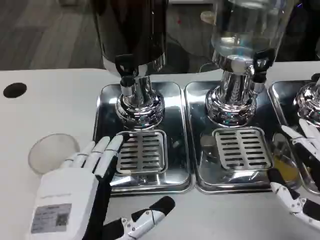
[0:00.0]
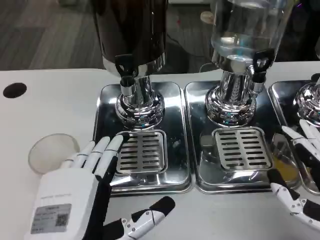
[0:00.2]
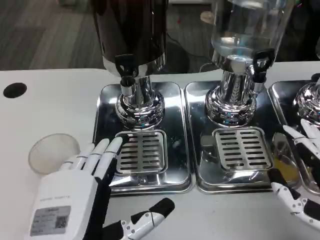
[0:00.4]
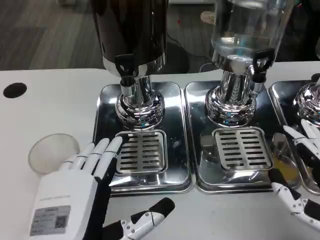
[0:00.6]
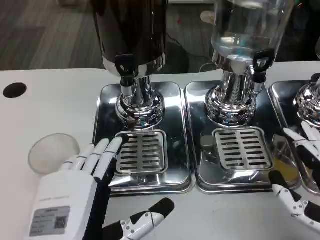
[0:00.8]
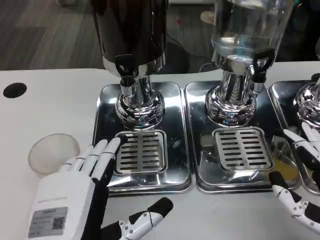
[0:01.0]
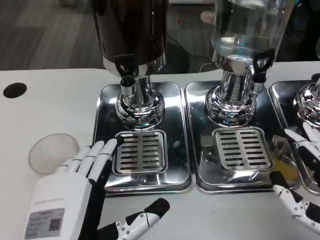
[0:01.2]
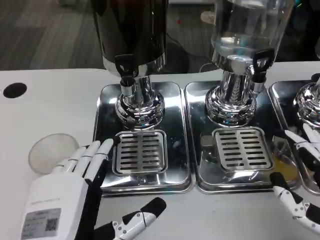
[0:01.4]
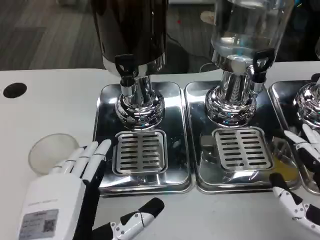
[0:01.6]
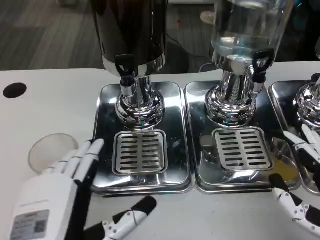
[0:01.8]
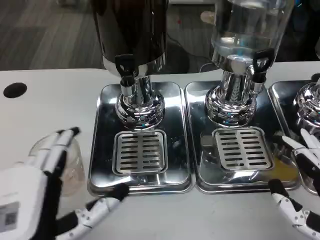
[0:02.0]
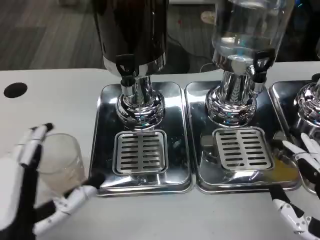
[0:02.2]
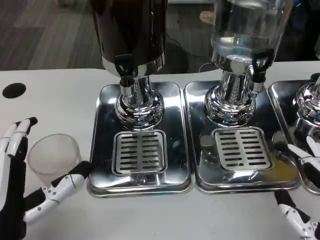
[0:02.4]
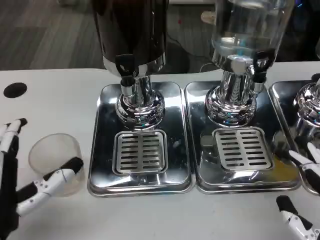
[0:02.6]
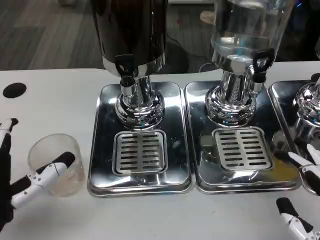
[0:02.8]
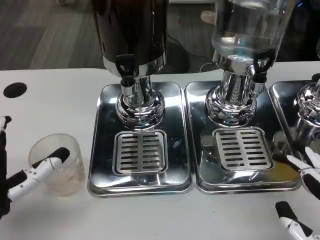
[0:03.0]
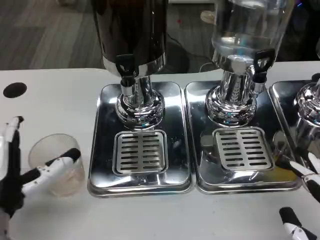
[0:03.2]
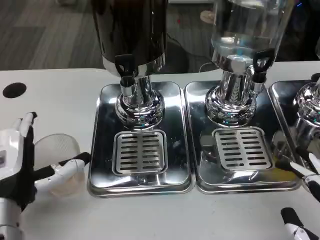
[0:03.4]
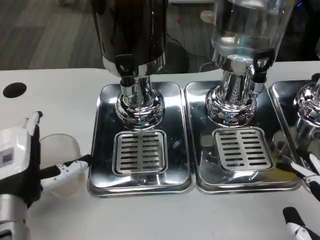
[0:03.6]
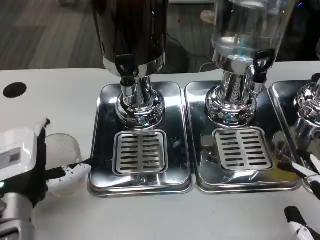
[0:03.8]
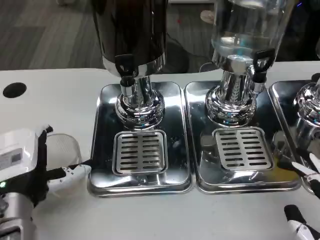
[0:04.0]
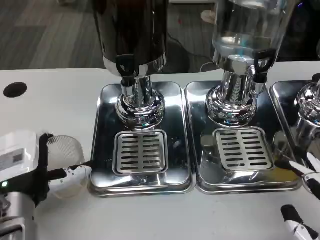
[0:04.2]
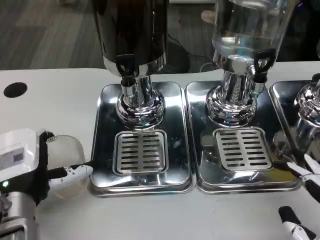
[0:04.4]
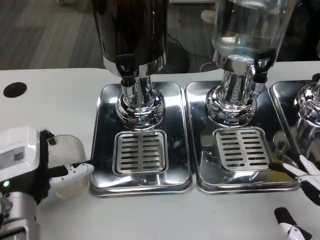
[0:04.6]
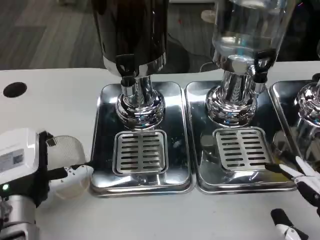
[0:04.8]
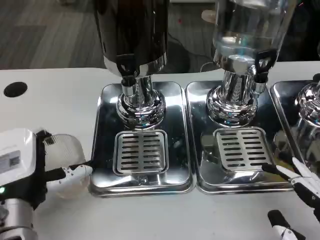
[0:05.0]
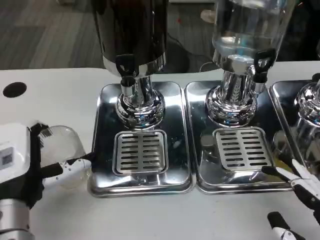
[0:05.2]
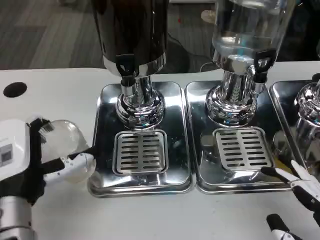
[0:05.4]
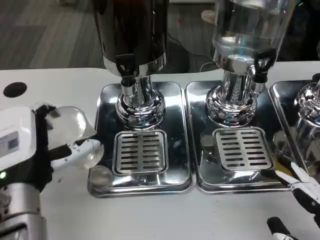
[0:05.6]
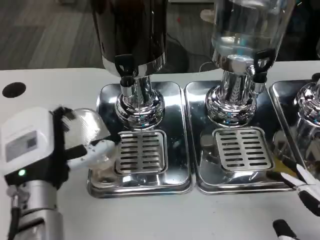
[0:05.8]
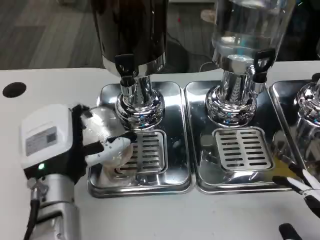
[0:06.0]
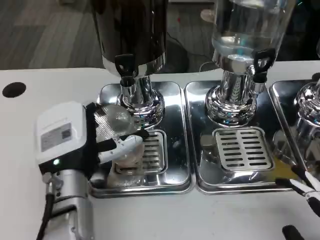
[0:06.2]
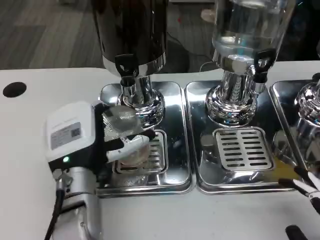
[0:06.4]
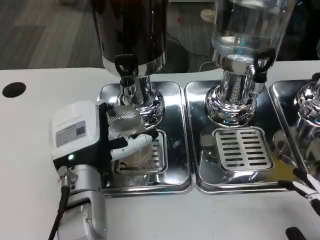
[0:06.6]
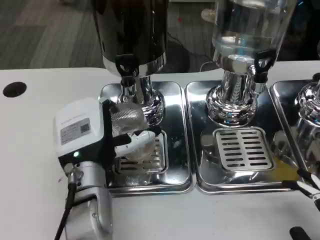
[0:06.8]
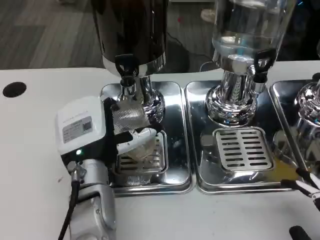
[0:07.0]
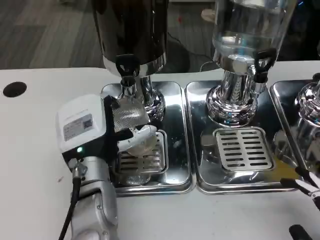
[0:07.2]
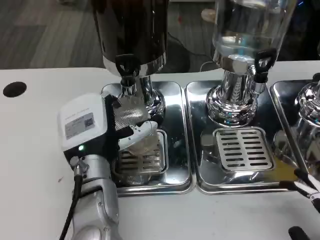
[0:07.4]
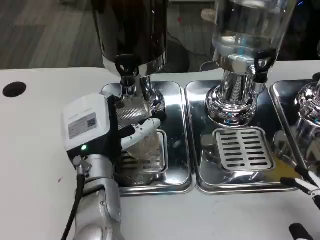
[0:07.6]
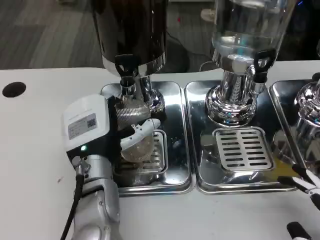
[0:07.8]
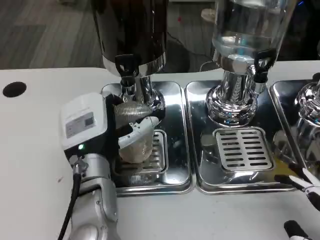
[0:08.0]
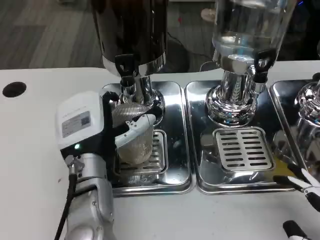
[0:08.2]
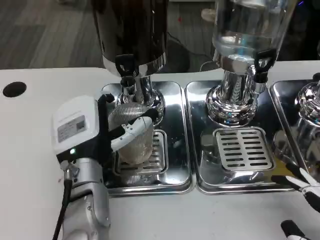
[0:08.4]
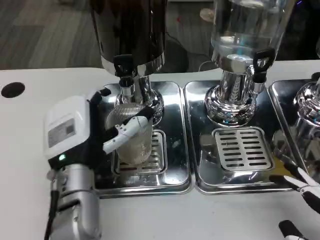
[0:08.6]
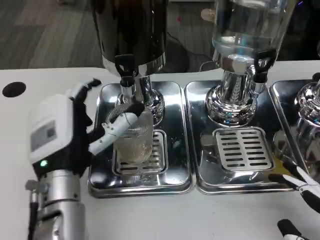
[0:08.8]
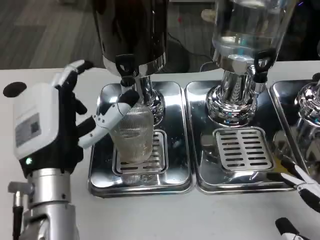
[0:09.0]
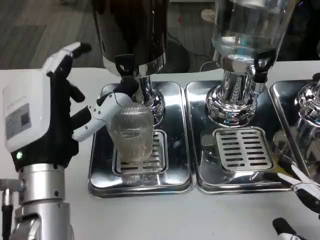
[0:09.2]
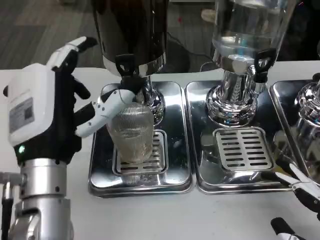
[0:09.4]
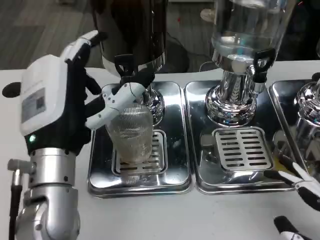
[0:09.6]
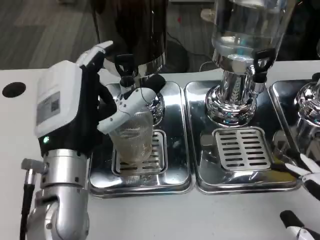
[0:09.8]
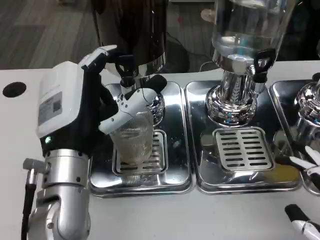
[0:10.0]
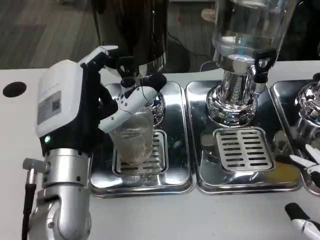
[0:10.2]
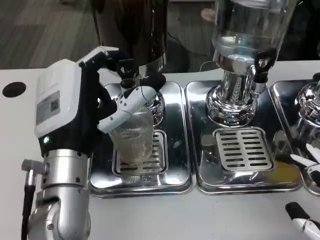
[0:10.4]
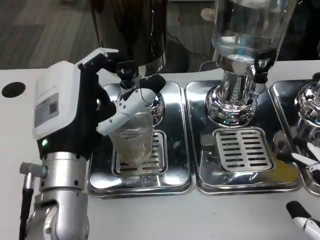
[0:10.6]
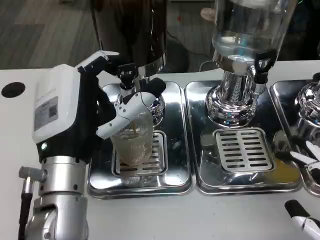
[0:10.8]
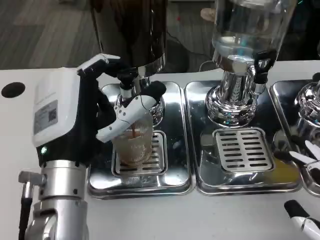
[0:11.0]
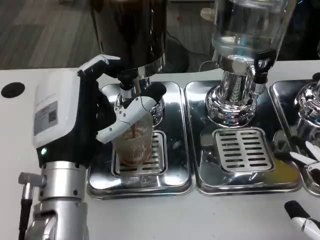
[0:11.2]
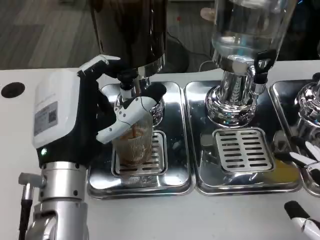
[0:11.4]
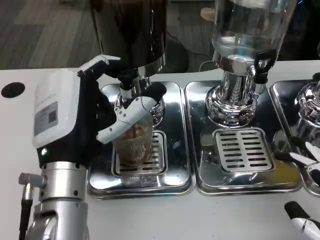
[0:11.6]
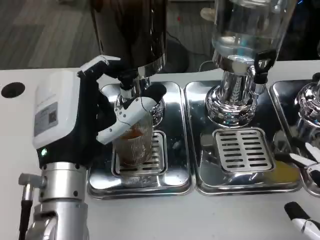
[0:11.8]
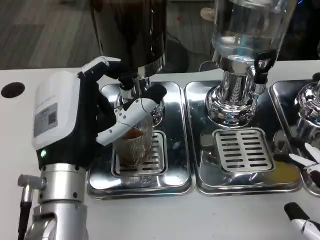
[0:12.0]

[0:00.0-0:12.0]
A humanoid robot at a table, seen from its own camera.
Task of the whole recording: Grasp the cup under the faucet to collect the drink, then remove the cup.
0:00.0 to 0:01.6: Both hands stay put.
0:01.6 to 0:03.0: The left hand goes about 10 cm to the left and forward.
0:03.0 to 0:04.4: The left hand changes place by some 5 cm.
0:04.4 to 0:06.0: The left hand moves roughly 5 cm.
0:06.0 to 0:07.6: The left hand ends up about 5 cm from where it was.
0:07.6 to 0:09.0: The left hand shifts by roughly 5 cm.
0:10.4 to 0:12.0: The hands move only a little.

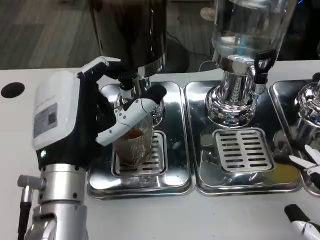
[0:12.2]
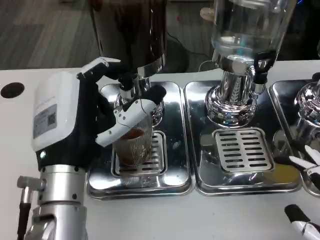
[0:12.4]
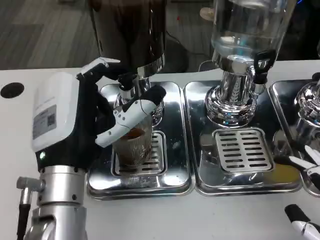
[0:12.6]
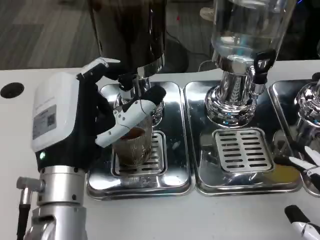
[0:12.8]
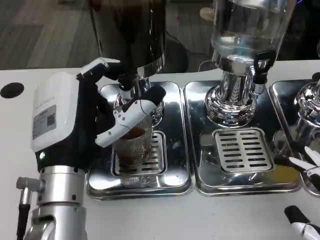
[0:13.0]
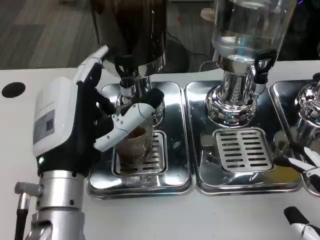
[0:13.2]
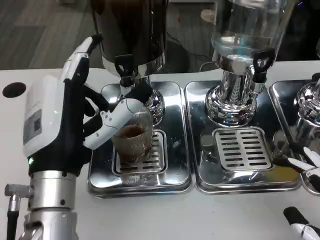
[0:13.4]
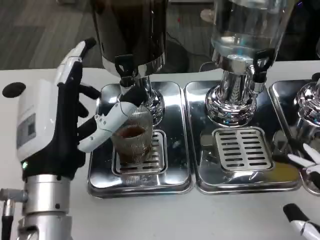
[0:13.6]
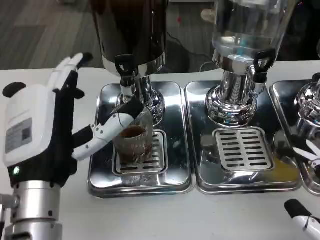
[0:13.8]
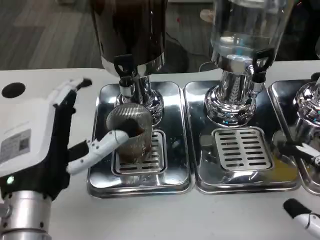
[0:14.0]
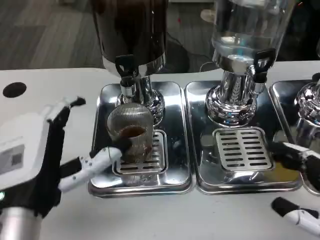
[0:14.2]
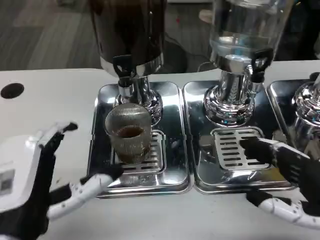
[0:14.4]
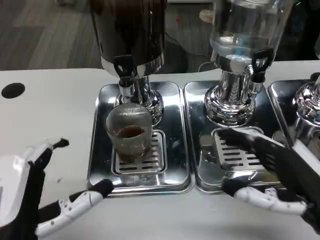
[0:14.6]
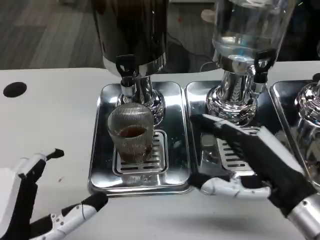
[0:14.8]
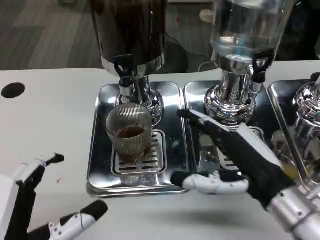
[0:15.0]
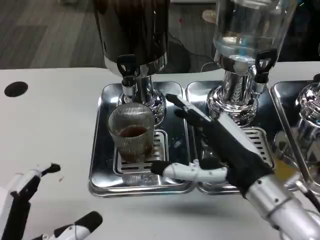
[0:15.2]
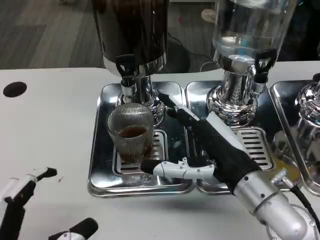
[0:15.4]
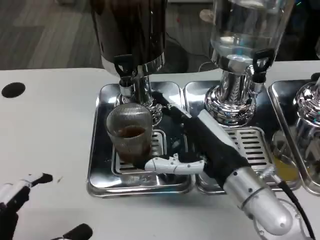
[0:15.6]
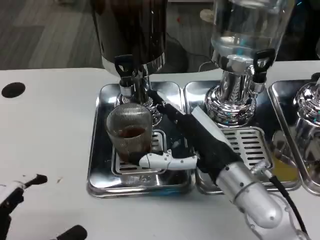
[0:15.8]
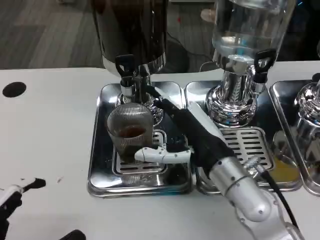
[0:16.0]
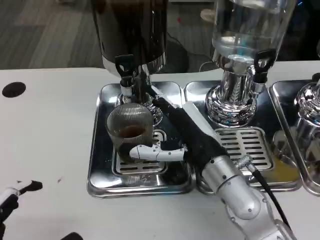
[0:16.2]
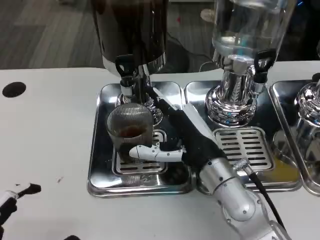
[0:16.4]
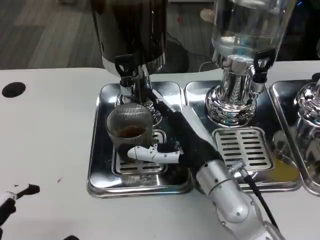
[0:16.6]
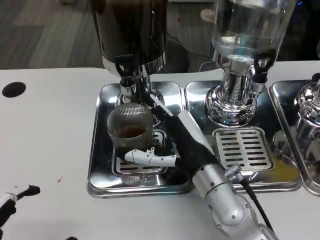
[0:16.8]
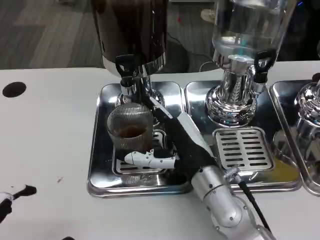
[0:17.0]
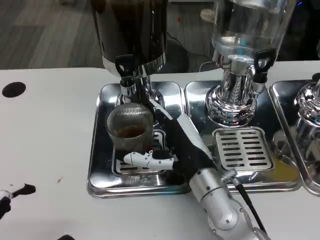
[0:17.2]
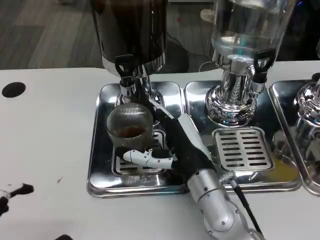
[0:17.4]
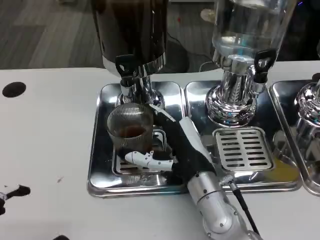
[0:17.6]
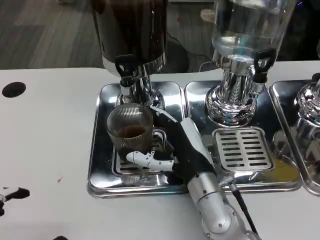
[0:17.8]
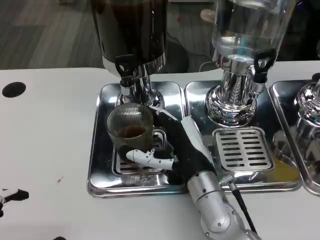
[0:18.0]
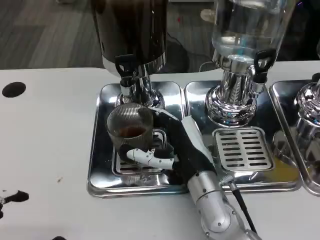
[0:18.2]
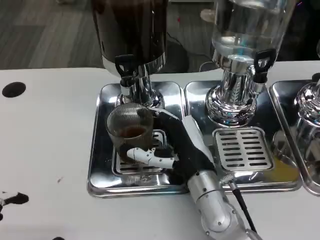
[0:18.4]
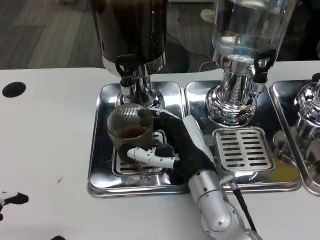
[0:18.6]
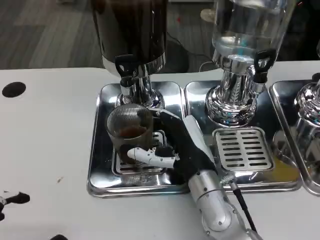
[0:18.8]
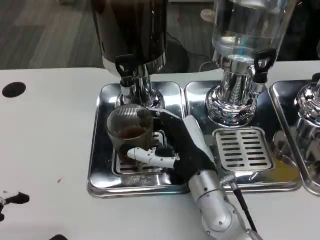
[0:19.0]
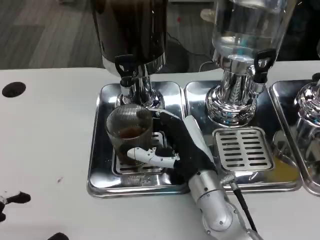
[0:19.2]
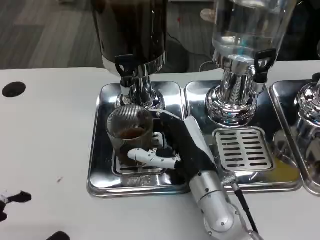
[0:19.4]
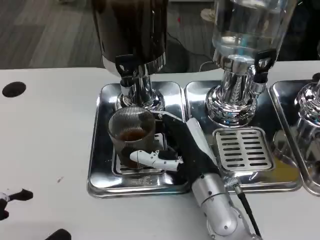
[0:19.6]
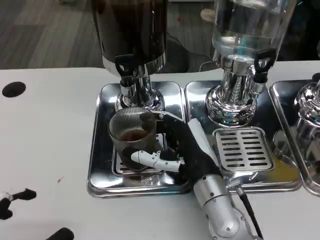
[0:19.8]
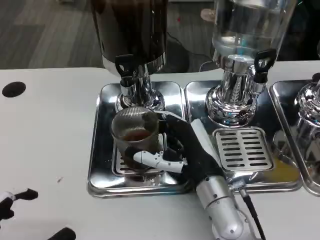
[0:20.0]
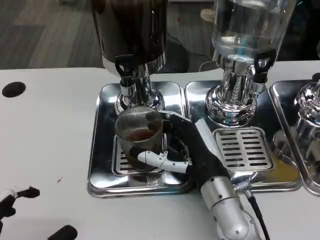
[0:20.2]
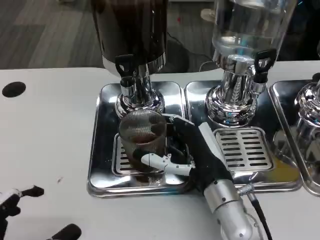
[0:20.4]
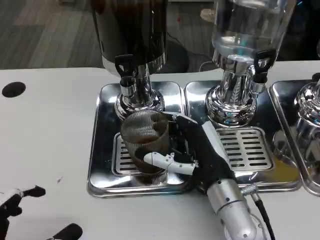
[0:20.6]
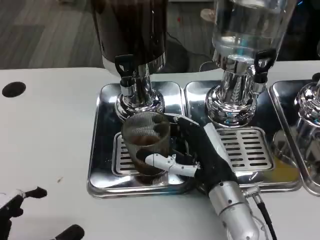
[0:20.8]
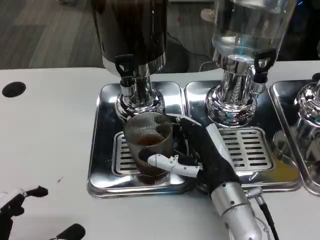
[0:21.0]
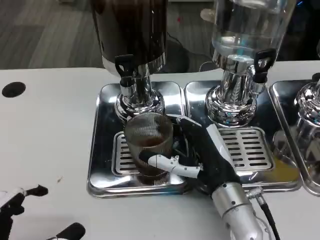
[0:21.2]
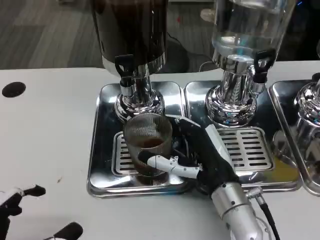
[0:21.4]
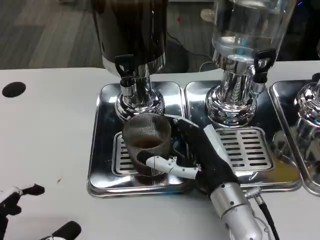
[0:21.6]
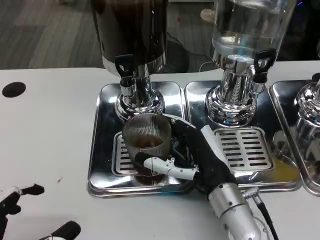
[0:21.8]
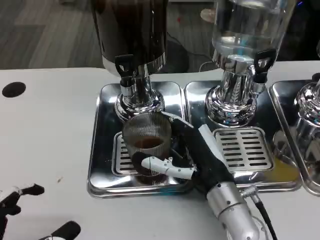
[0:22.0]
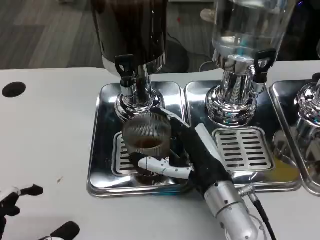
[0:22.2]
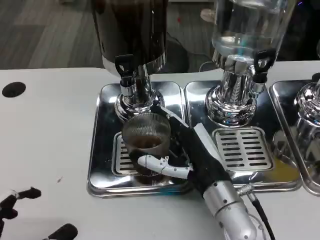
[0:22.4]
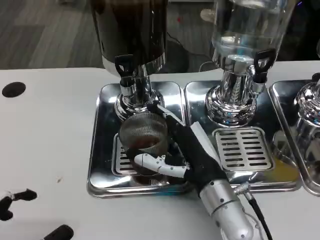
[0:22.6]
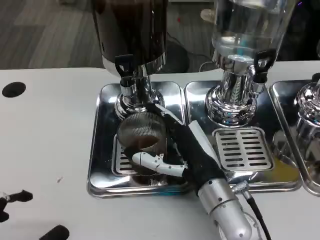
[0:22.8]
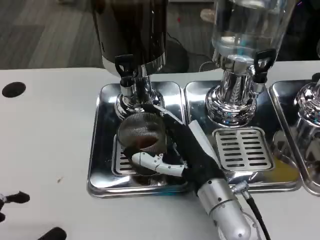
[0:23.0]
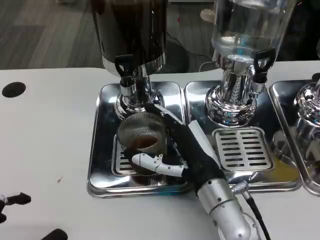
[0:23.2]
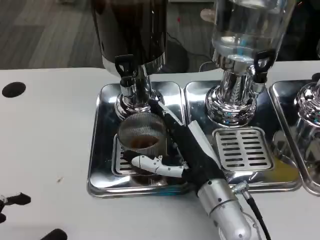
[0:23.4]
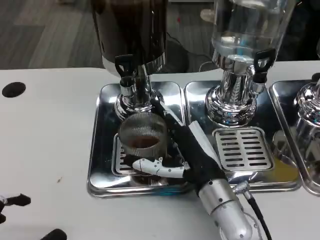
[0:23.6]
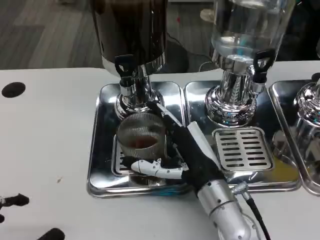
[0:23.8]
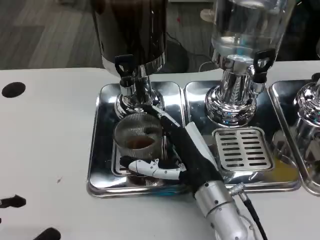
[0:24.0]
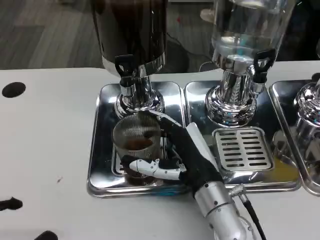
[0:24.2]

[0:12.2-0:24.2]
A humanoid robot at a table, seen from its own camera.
Task of the whole recording: Grasp the cup under the faucet to collect the drink, then remove the cup.
0:13.8 to 0:15.2: The left hand travels backward and to the left by approximately 15 cm. The right hand is displaced to the left and forward by some 20 cm.
0:15.2 to 0:16.6: The right hand travels to the left by about 5 cm.
0:16.6 to 0:18.2: The hands make only small movements.
0:18.2 to 0:19.8: The two hands keep their place.
0:19.8 to 0:24.2: The hands move only a little.
